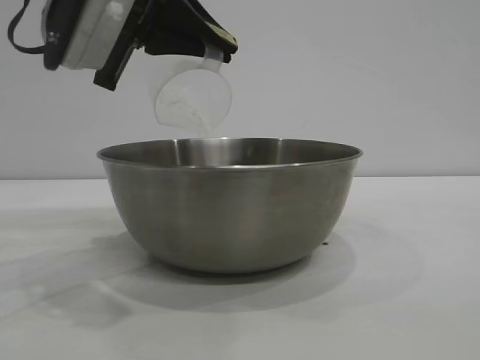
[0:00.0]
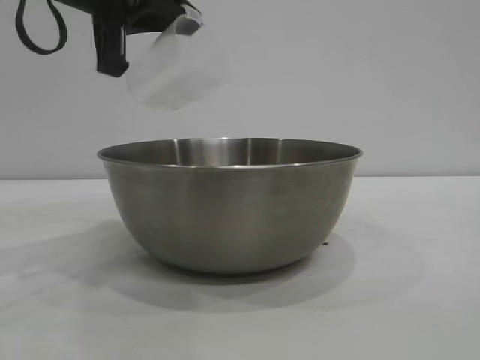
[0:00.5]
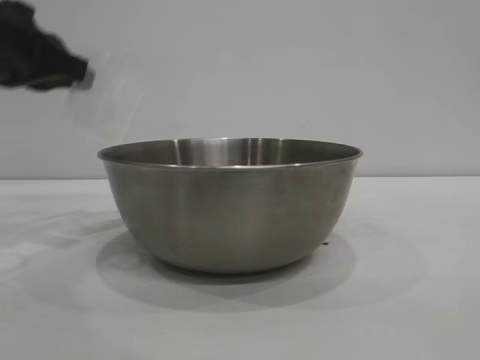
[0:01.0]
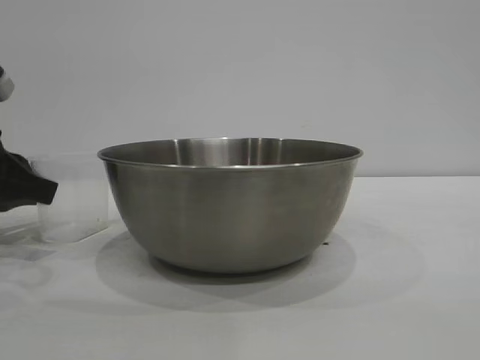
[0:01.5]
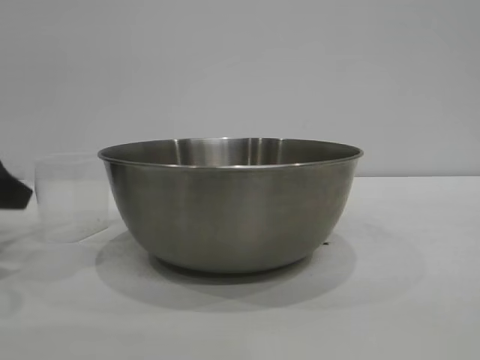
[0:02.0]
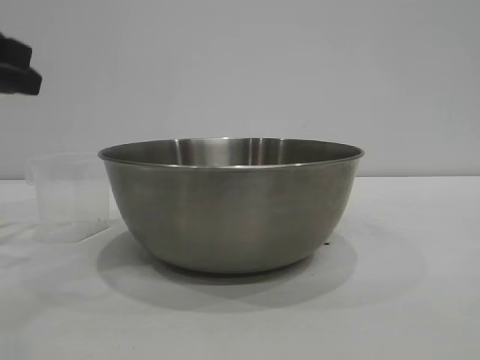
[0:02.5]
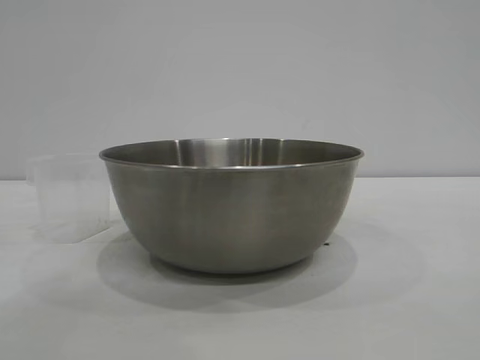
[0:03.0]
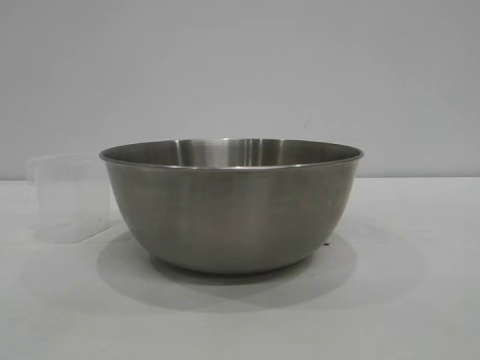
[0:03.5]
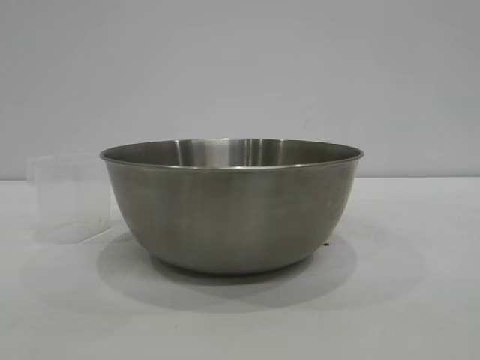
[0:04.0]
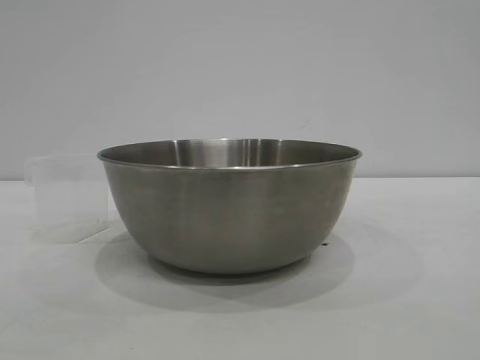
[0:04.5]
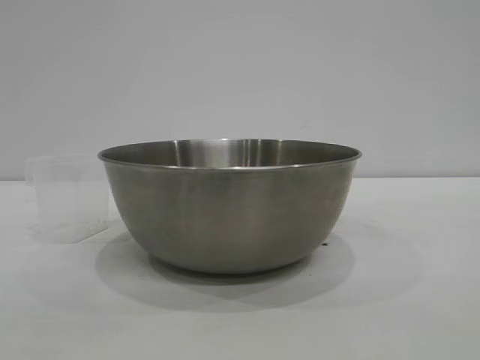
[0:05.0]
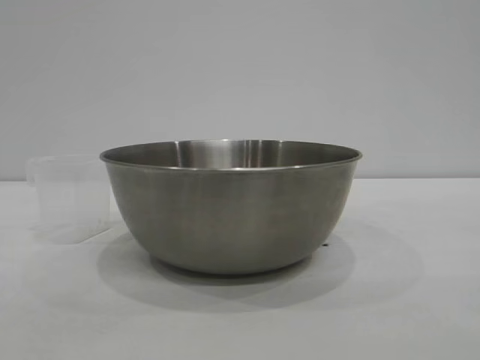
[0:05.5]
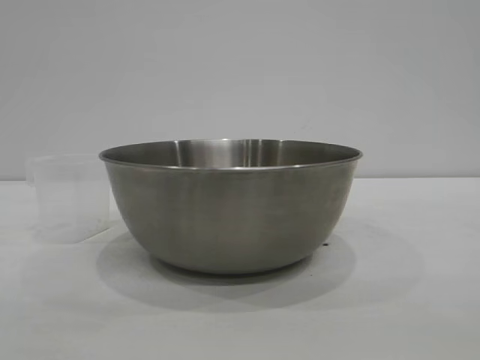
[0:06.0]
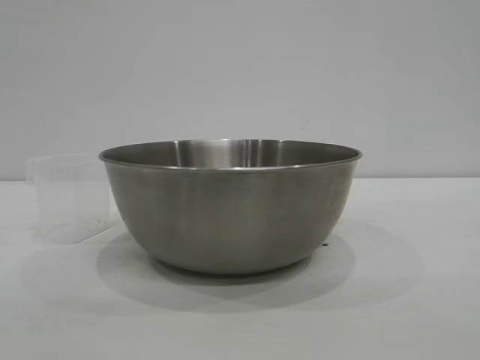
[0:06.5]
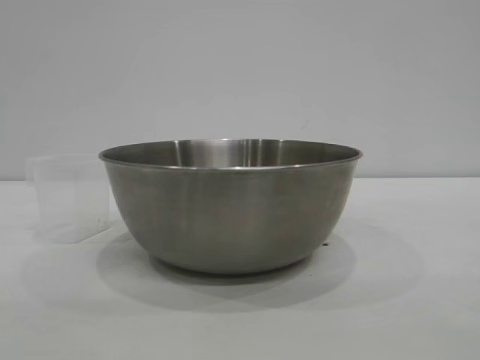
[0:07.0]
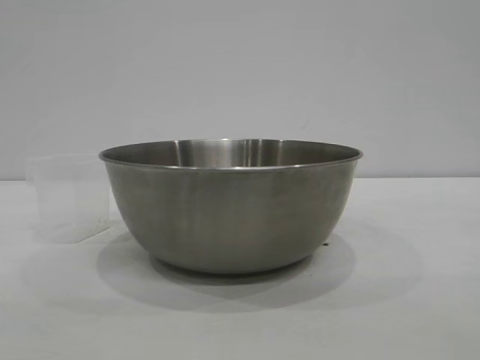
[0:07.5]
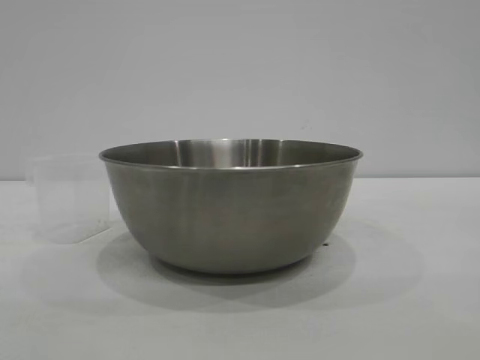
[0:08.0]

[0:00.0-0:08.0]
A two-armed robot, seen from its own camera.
Task of the whole recording: the right gripper grasp the rice container and place it in the center of the table, the left gripper grasp the rice scoop and pour the rice into the rice container.
Step, 0:00.5 to 0:02.0: Place the cup on the table with the left gripper.

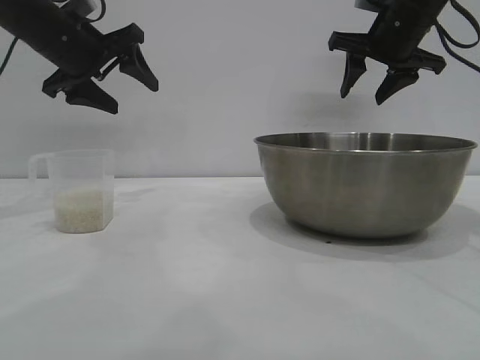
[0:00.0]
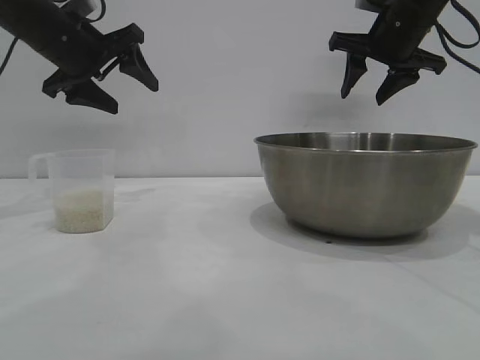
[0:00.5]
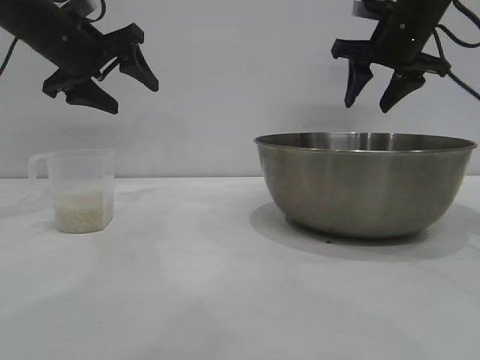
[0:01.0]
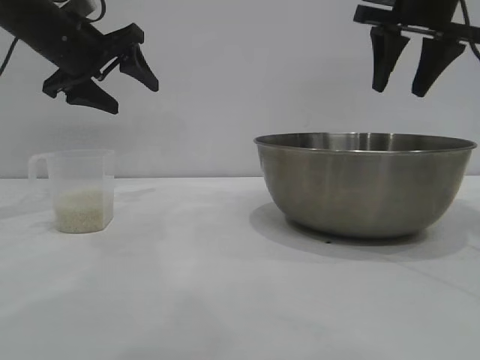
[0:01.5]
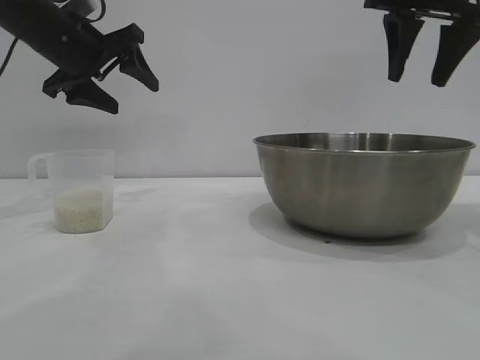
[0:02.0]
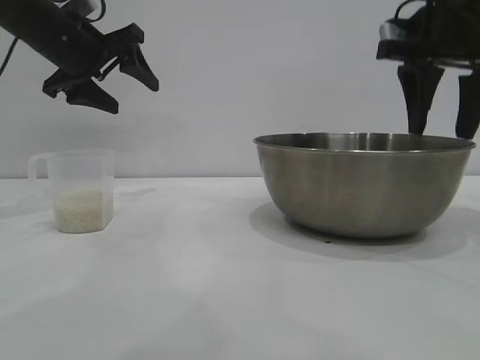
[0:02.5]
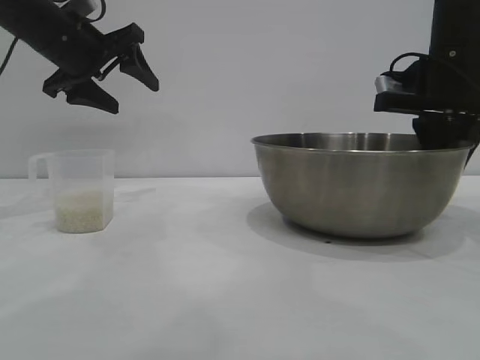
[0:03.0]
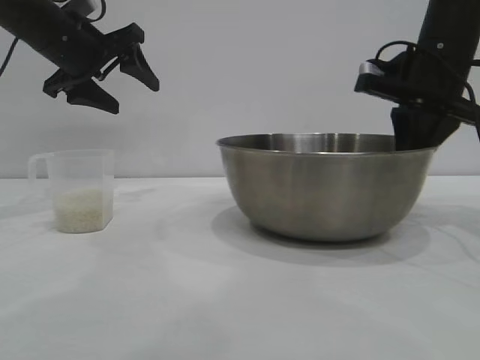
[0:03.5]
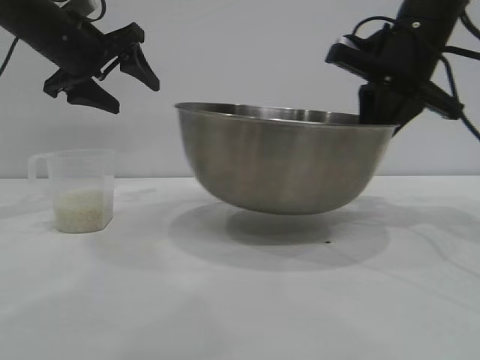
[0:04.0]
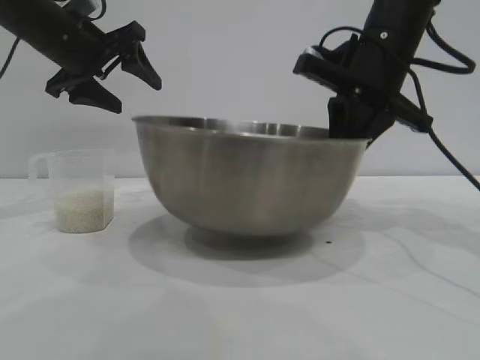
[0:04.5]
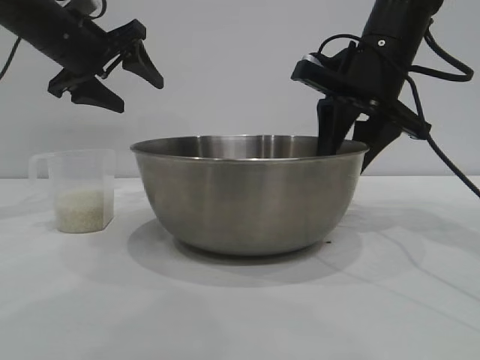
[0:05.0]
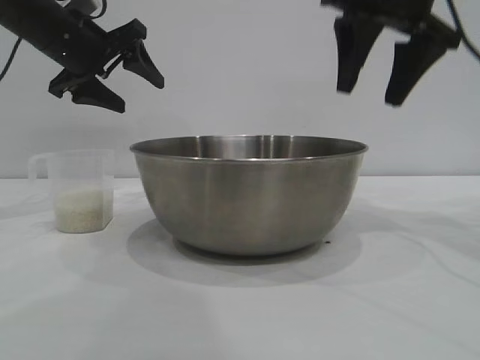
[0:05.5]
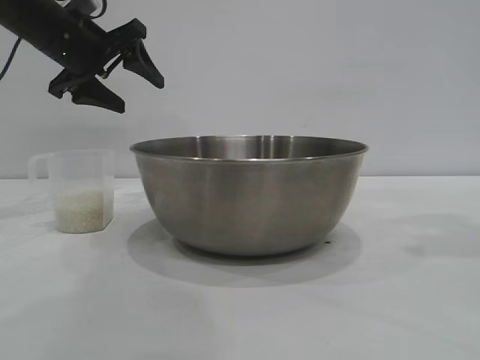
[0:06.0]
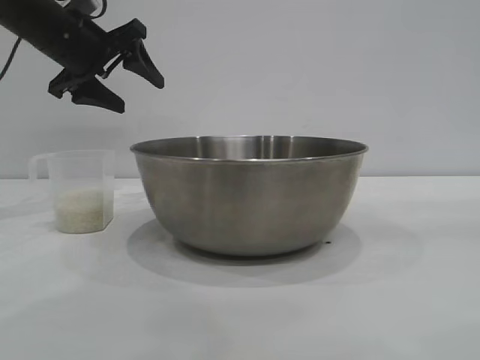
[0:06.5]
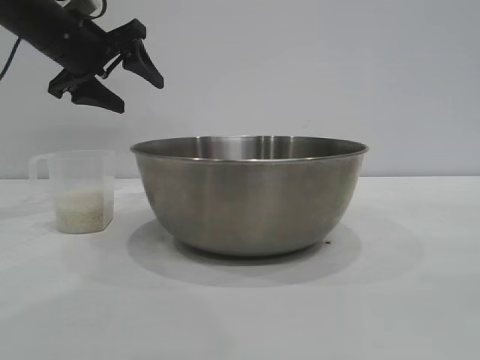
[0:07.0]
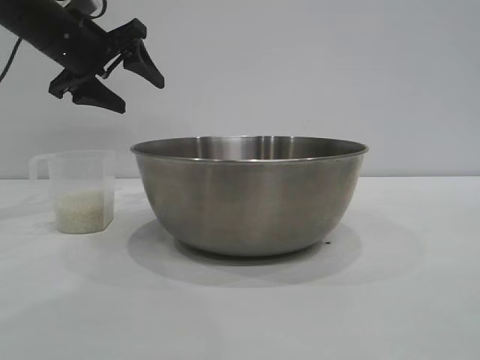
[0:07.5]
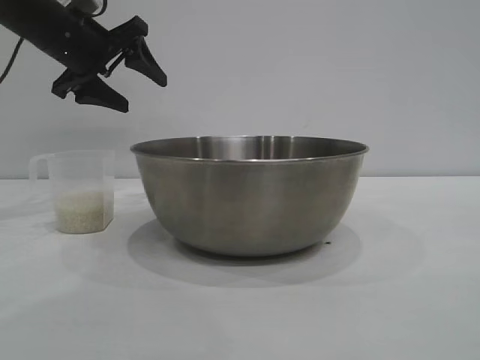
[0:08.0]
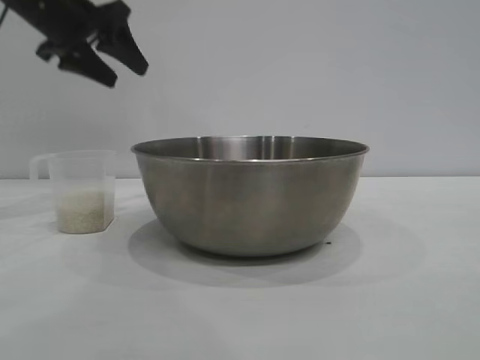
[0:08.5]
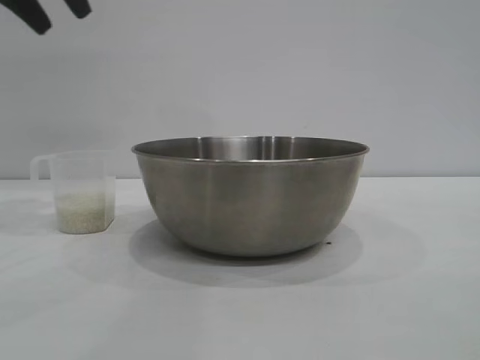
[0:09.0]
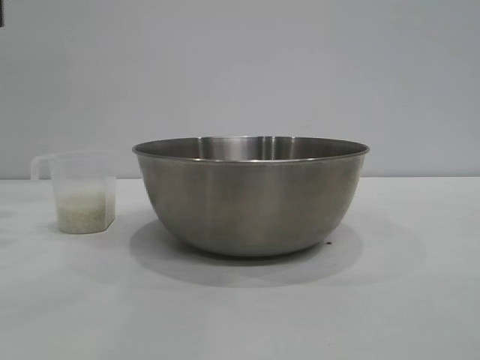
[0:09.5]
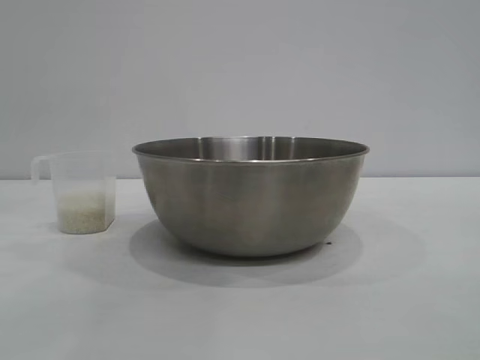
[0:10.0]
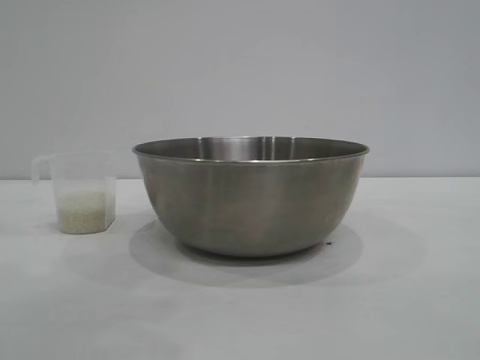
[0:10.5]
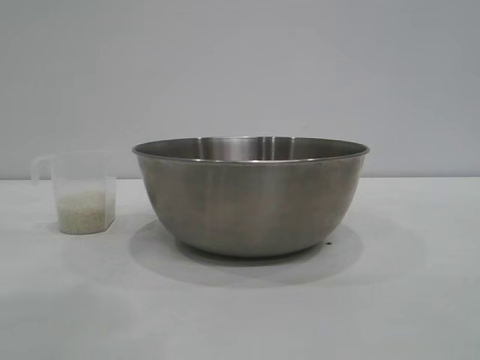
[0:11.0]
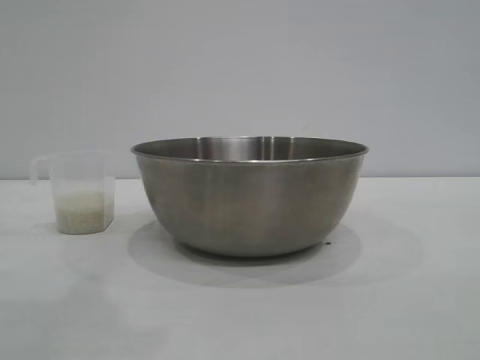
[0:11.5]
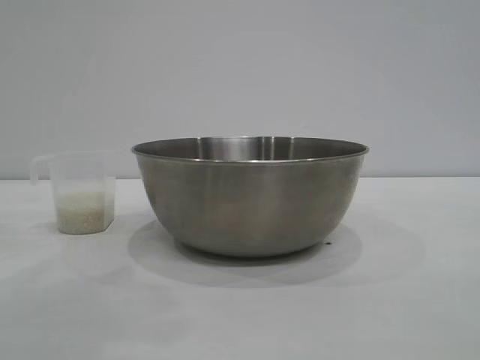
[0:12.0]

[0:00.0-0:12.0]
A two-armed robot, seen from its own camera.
Task of the whole recording: the right gripper grasp the rice container and place it in the center of the table, the left gripper grasp the rice scoop and pour the rice into the rice container.
Step, 0:00.0 to 0:03.5: Pick up the bowl with the right gripper.
Step, 0:04.0 to 0:05.0: Place the bowl in the center of view with the right gripper.

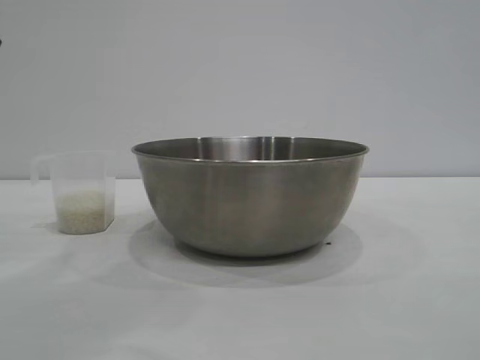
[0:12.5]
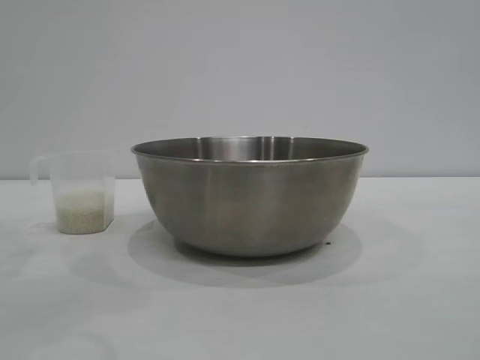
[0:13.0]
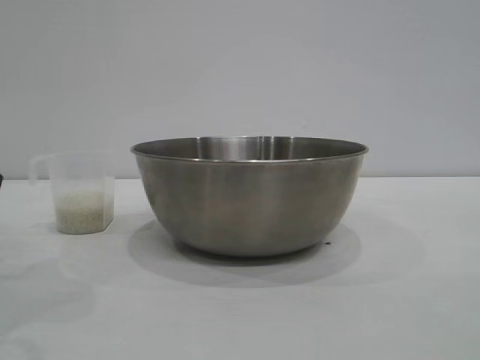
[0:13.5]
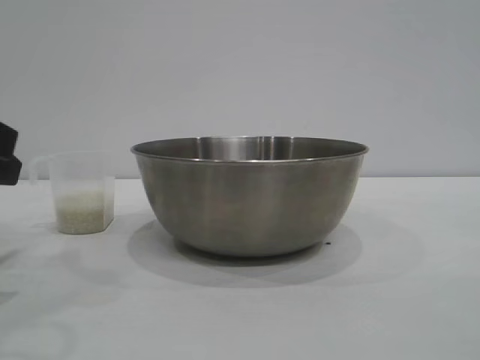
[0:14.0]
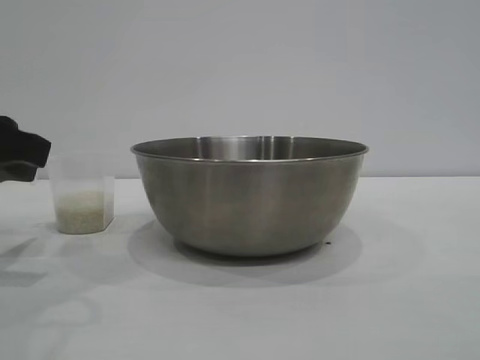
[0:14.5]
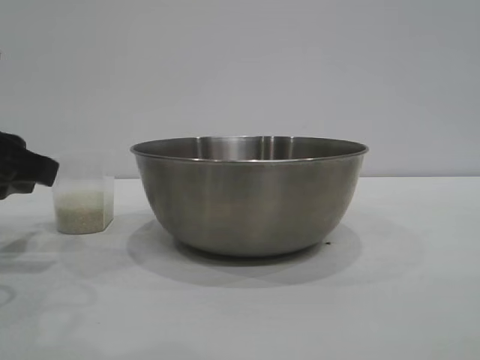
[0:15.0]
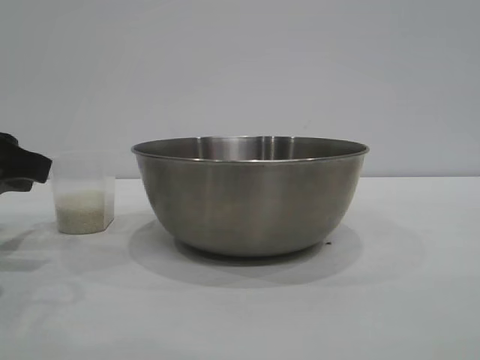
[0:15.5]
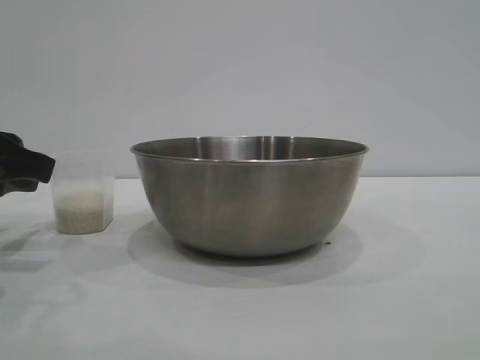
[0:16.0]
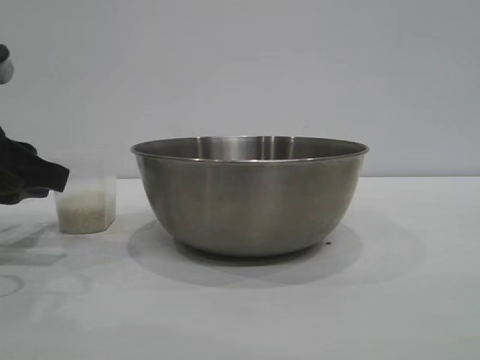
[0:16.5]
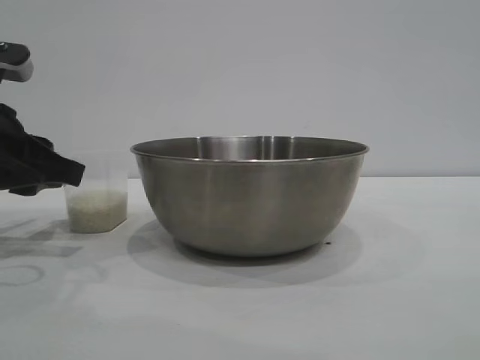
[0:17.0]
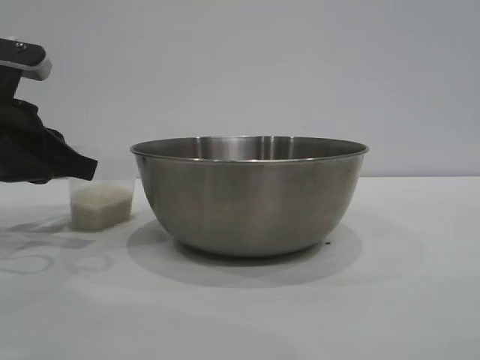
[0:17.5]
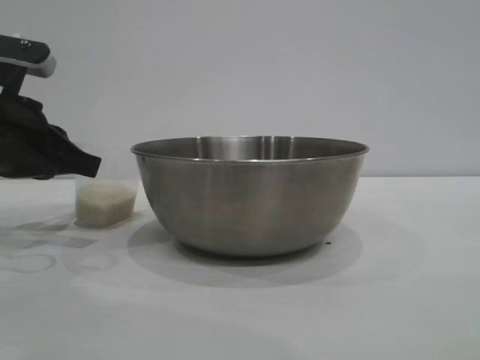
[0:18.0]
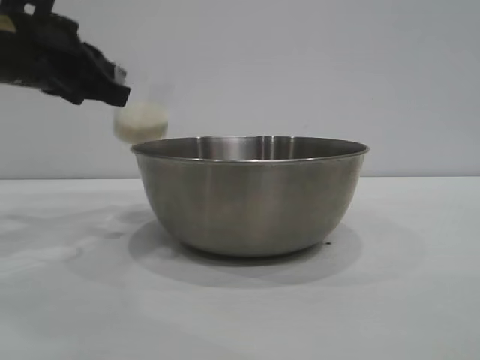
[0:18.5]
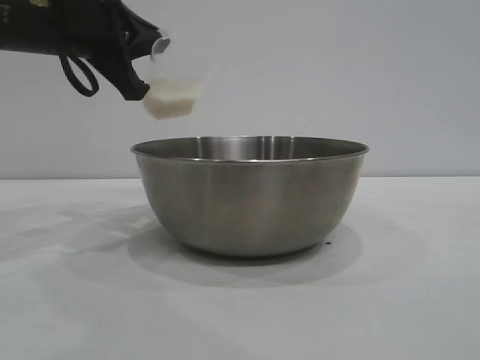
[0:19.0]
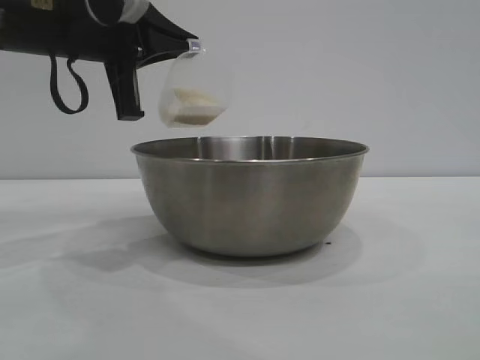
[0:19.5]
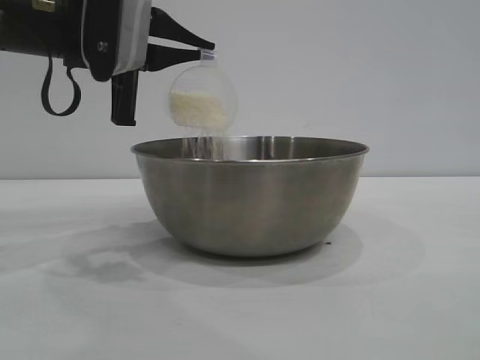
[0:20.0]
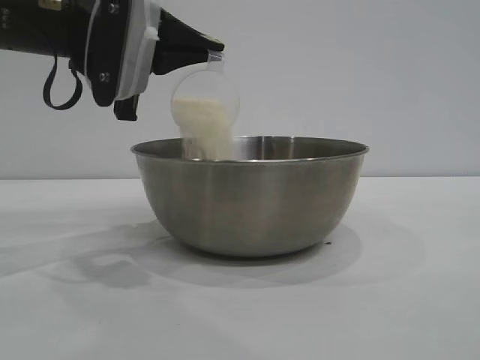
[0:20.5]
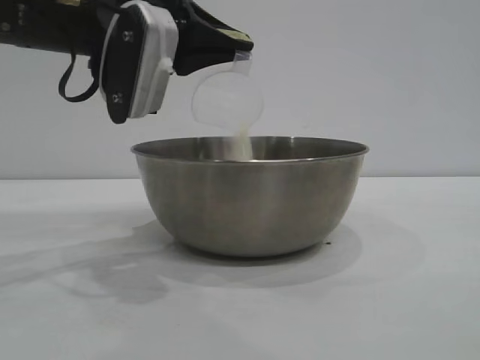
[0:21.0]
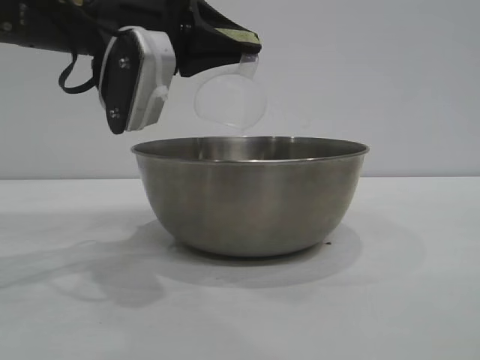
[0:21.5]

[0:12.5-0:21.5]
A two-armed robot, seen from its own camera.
Task of the whole recording: the right gripper grasp the rice container and place it in the center of the table, the left gripper grasp the rice scoop and pour the rice into the rice container.
Step, 0:12.5 to 0:18.0: Pick up the cup with rice in it with the left gripper.
